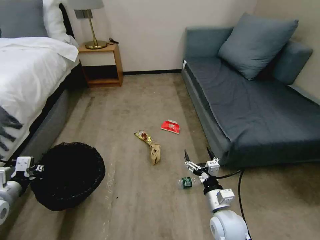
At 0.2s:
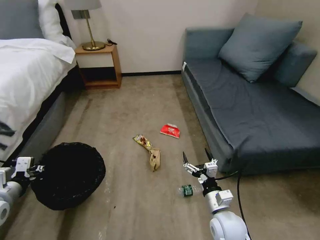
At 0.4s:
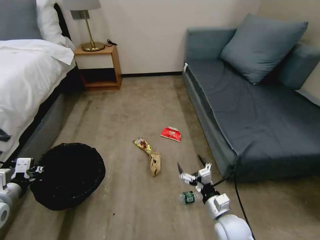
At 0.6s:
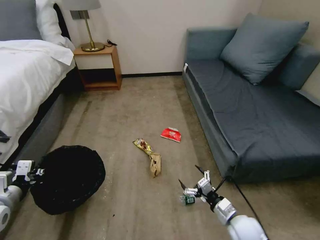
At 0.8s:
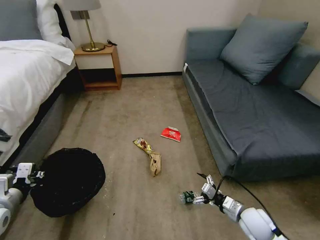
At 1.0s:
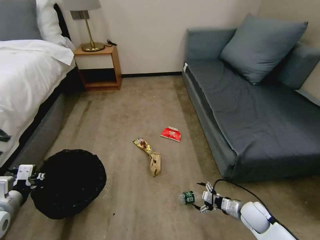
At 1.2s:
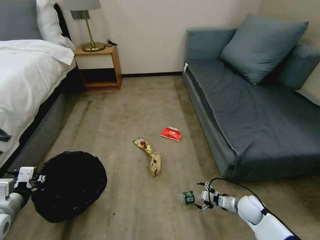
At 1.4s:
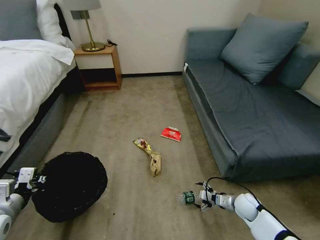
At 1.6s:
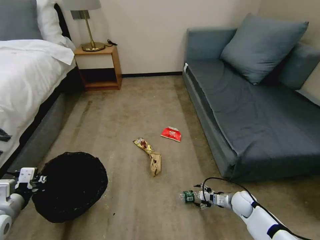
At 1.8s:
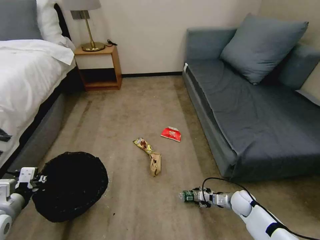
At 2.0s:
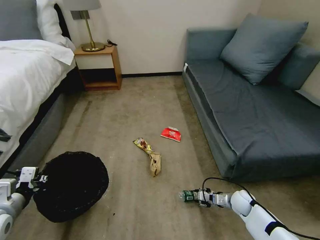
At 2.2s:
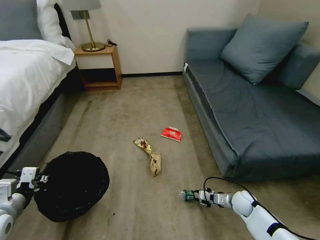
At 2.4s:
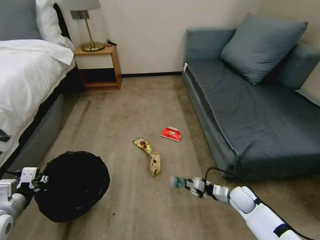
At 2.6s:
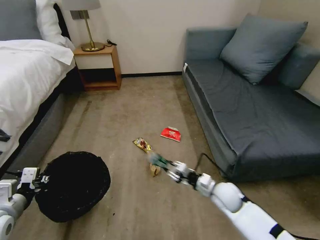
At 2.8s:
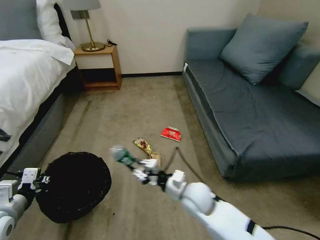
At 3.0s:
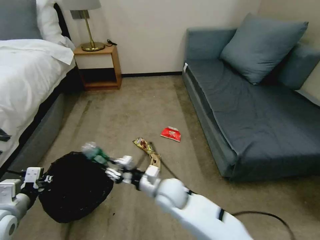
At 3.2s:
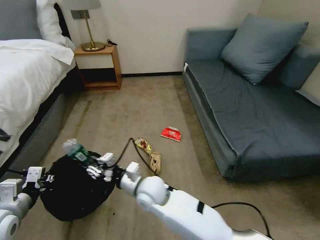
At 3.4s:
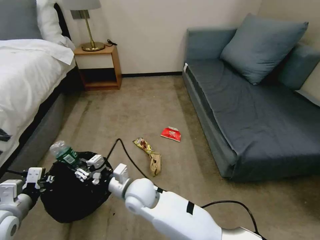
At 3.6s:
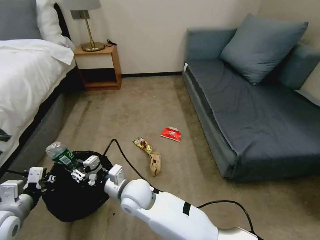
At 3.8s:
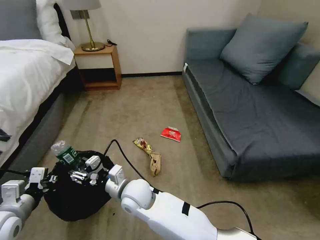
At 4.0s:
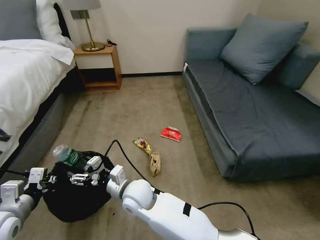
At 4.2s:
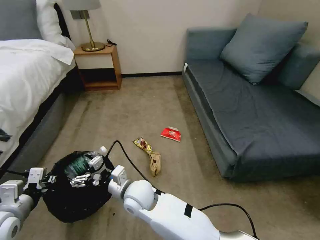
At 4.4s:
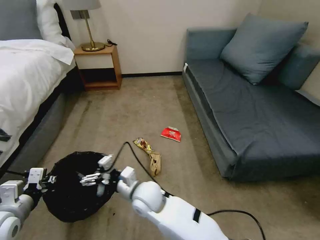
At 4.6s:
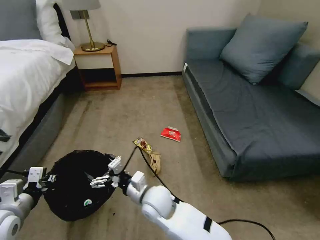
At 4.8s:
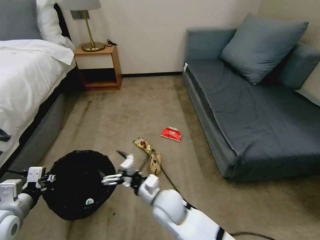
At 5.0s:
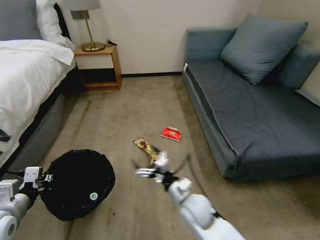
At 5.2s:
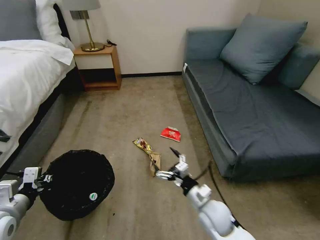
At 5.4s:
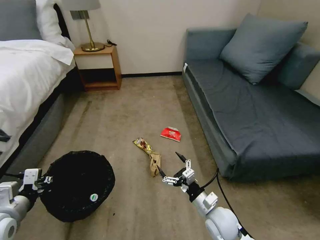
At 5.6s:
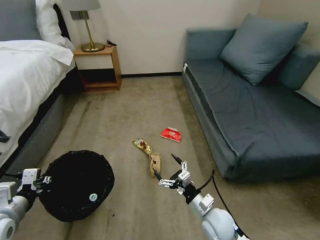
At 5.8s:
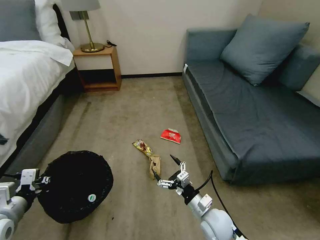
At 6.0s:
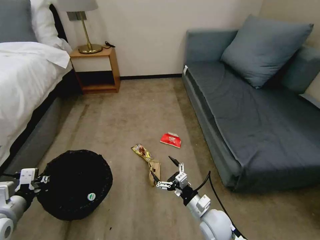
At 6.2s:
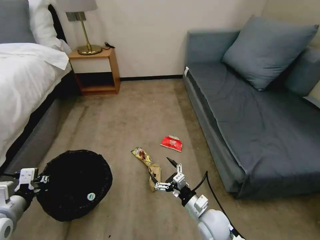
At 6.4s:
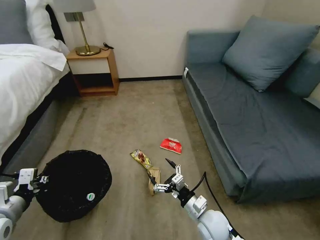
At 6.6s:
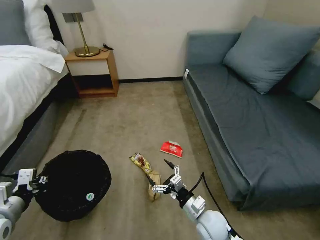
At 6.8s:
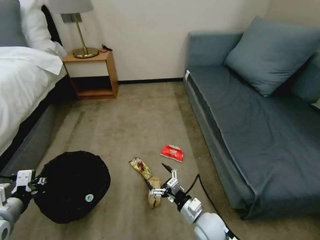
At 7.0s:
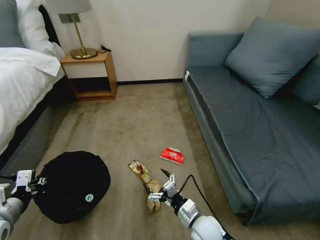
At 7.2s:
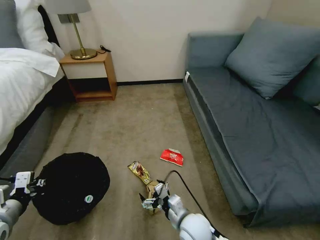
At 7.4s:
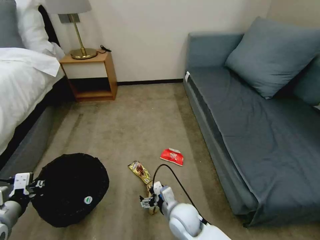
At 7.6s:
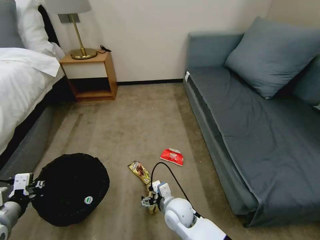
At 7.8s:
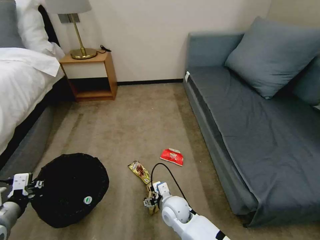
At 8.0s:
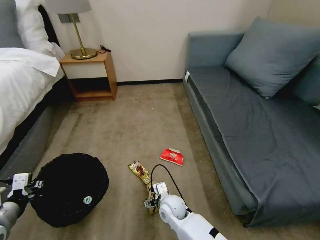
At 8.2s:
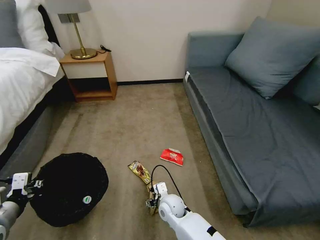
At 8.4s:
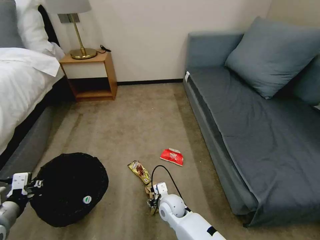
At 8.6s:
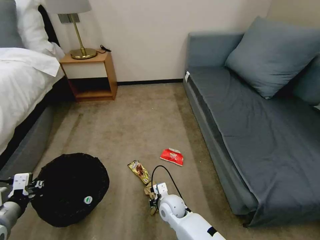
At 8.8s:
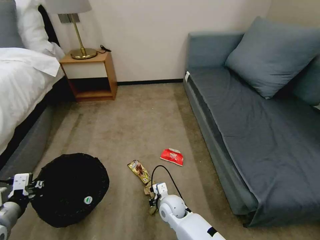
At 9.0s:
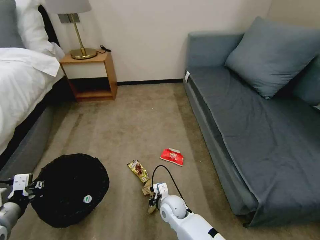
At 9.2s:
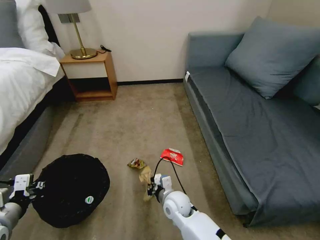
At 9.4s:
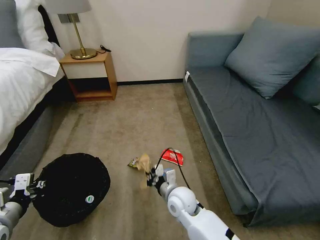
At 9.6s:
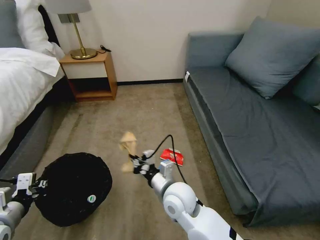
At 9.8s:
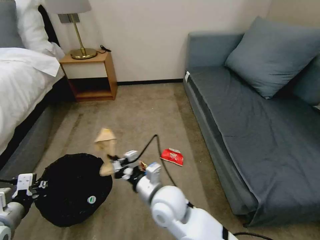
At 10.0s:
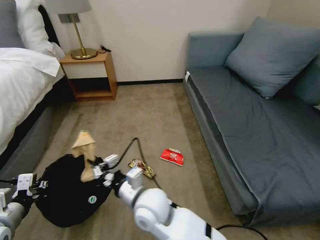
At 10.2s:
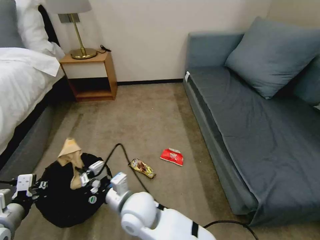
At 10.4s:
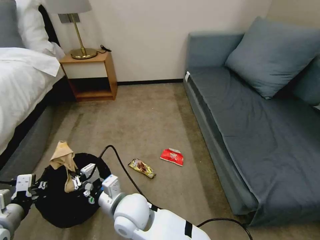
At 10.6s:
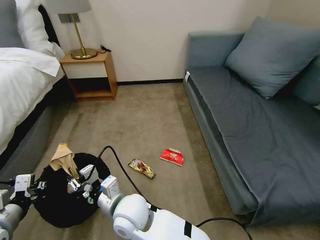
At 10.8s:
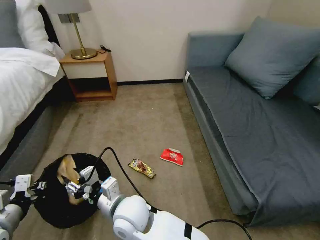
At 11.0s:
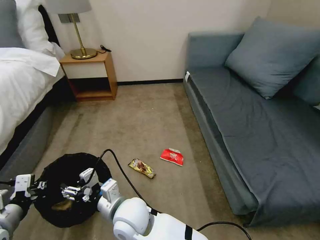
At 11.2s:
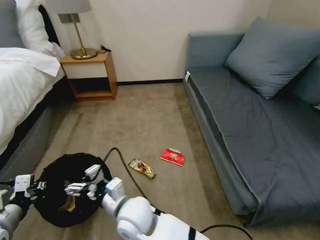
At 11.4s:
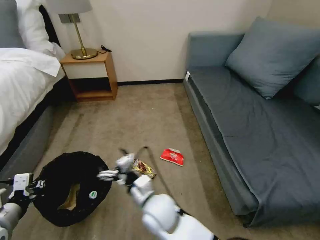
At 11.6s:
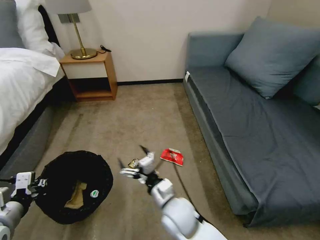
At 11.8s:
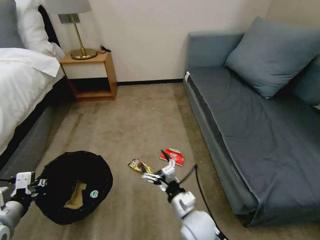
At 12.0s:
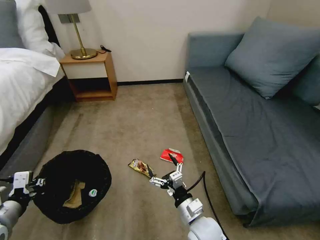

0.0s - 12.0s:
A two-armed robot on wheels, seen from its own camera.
Task of the whole recording: Pick up the trash bin, then pick up the garbage on the floor and place it into the trash bin.
0.0s - 1.6s: The right gripper heads to the right, downward and forward, covering about 25 cm.
1.6s - 3.0s: The right gripper shifts roughly 35 cm to the left and upward, and closes its fingers.
3.0s - 4.4s: The right gripper shifts about 10 cm to the left, and opens its fingers.
4.4s - 6.0s: The right gripper moves to the right, some 25 cm.
6.0s - 7.6s: The right gripper moves to the left, some 10 cm.
7.6s - 9.0s: The right gripper heads downward, covering about 5 cm, and closes its fingers.
9.0s - 10.4s: The right gripper moves upward and to the left, about 20 cm.
10.4s - 12.0s: The right gripper heads to the right and downward, covering roughly 25 cm, and opens.

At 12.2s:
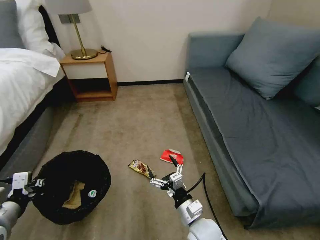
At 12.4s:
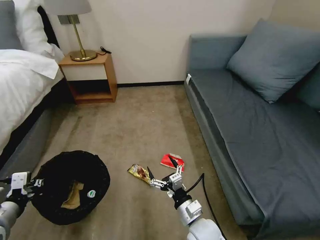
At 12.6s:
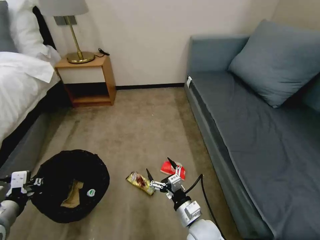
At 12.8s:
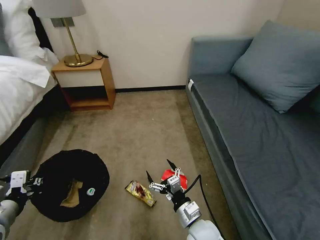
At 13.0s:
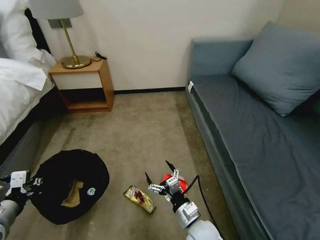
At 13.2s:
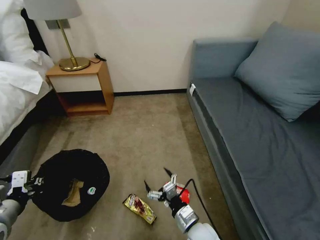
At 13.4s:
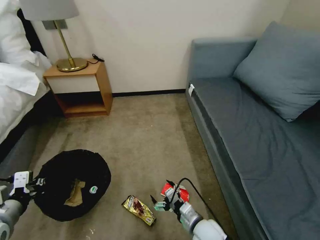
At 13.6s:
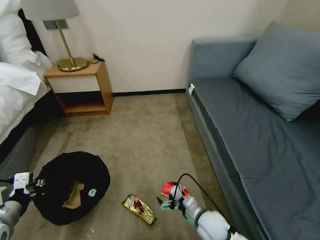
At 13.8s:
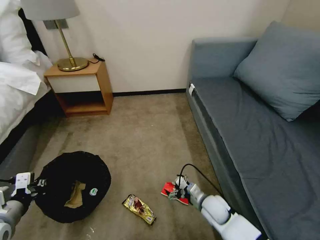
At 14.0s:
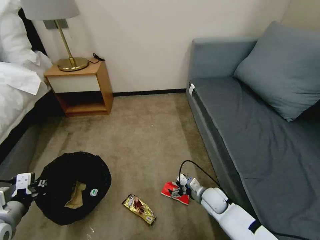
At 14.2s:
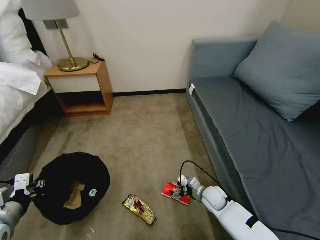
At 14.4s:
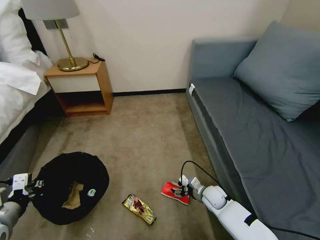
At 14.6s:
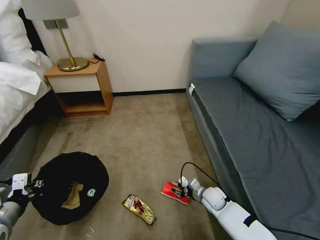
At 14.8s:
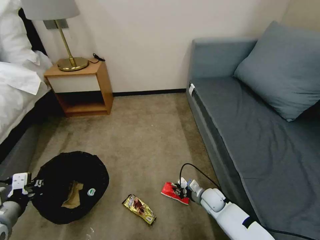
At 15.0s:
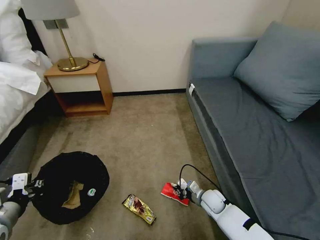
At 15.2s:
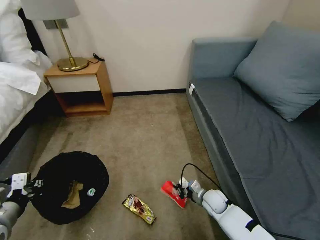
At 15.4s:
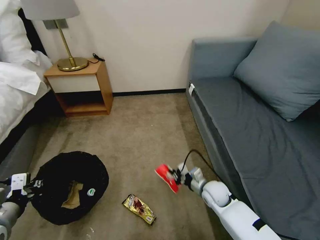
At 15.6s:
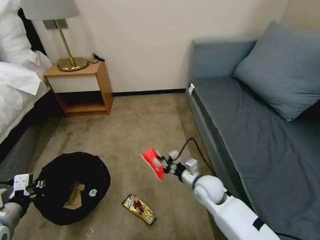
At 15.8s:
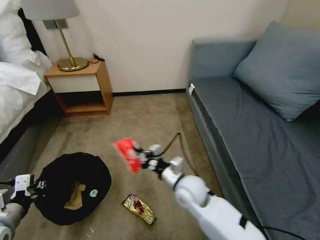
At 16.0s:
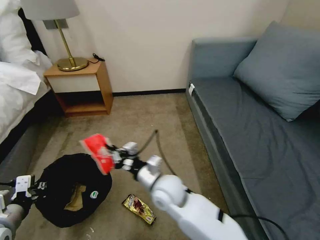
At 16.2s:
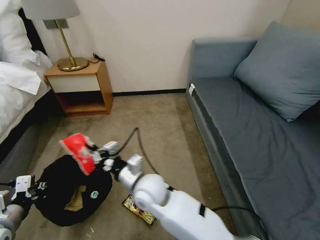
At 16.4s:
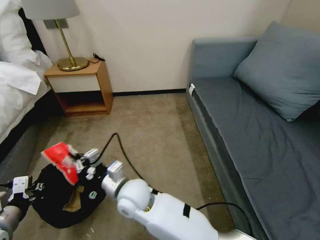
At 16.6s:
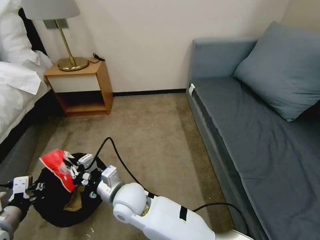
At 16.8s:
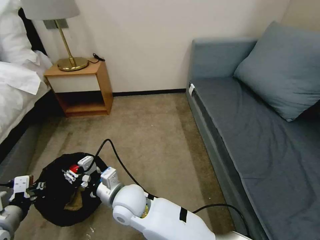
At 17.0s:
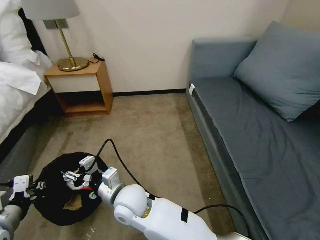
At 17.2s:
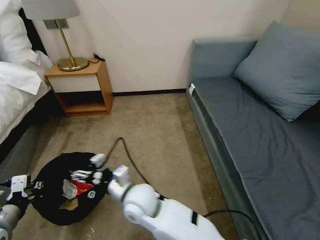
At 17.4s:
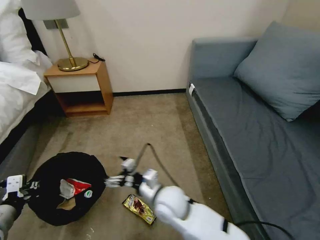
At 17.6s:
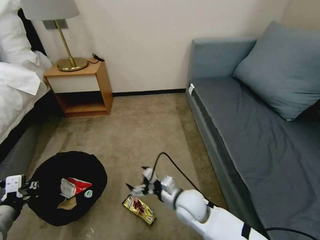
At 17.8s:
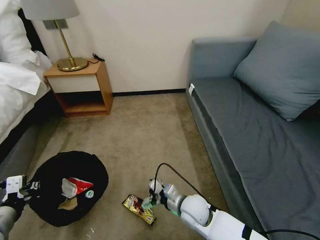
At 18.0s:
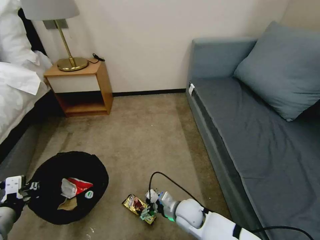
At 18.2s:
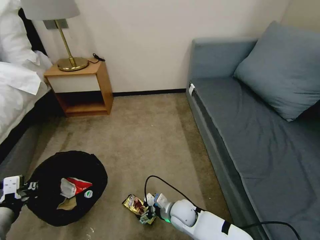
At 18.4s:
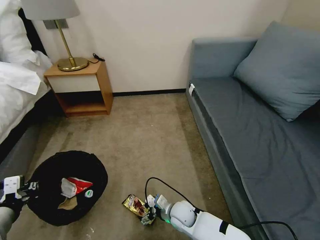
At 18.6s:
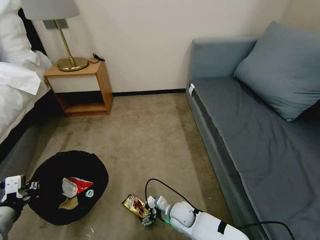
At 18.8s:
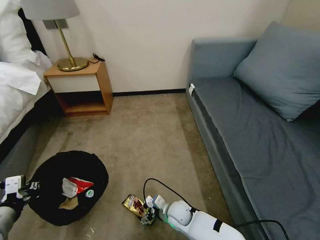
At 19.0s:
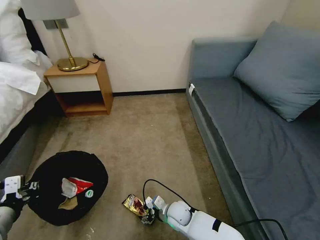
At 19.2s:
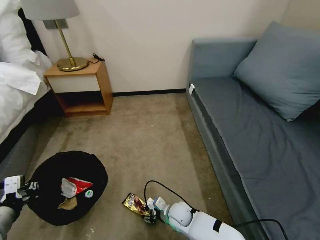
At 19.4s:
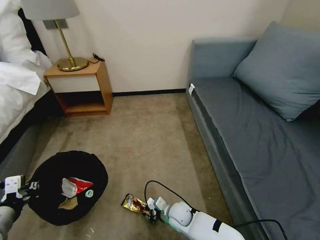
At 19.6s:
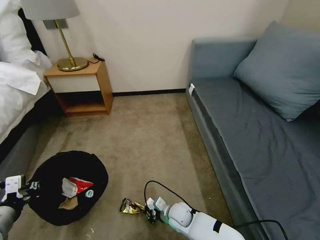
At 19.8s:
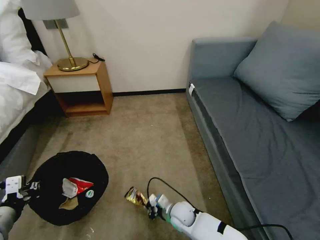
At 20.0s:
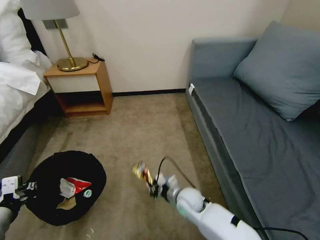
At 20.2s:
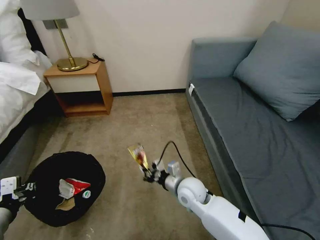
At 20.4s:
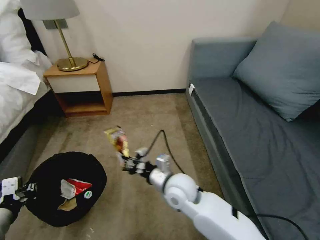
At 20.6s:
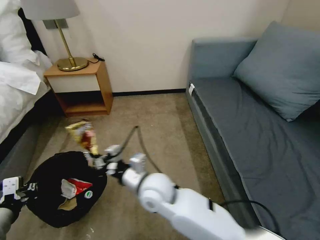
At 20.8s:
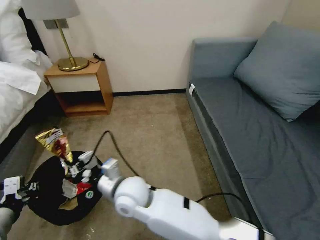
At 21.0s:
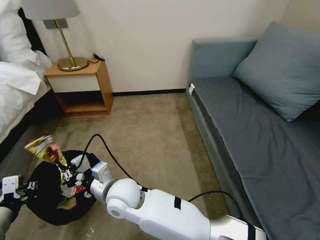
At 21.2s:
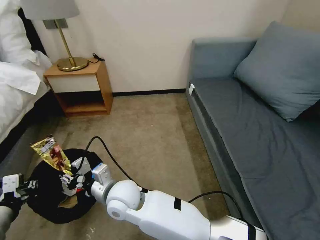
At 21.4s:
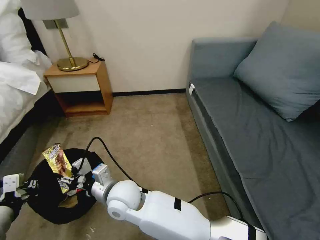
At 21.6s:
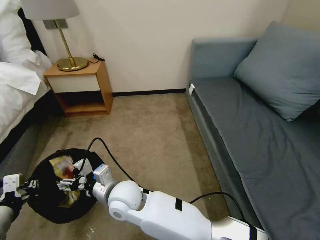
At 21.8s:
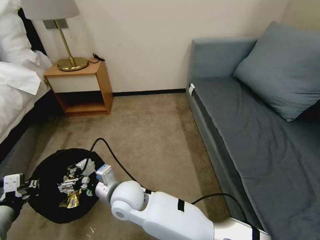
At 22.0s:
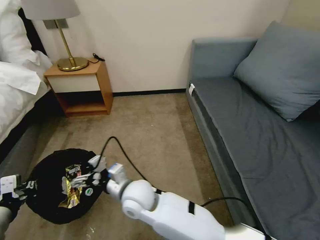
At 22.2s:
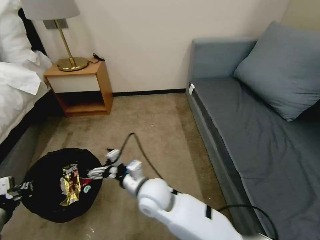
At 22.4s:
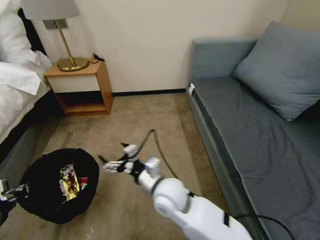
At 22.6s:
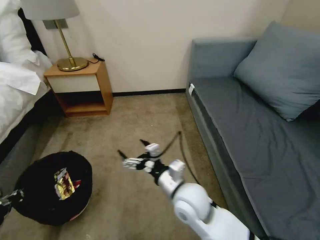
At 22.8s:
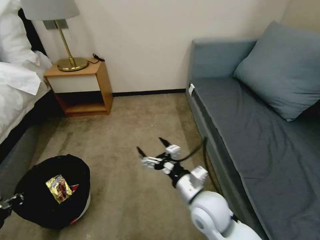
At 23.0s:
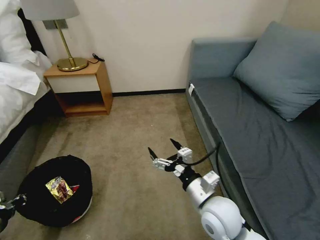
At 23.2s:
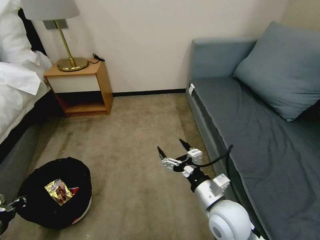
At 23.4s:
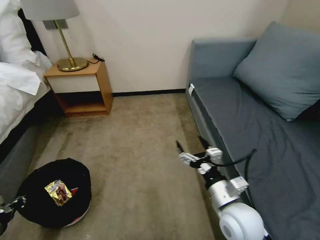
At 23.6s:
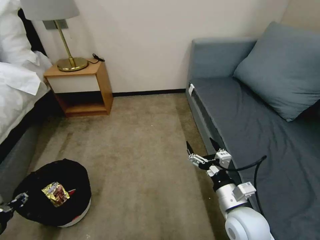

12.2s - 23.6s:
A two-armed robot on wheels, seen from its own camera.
Task of the whole recording: Pick up the trash bin, then pick up the garbage on the floor and place it into the trash bin.
12.2s - 13.6s: The right gripper heads downward, covering approximately 5 cm.
13.6s - 15.0s: The right gripper is displaced forward and downward by approximately 10 cm, and closes up.
15.0s - 16.4s: The right gripper is displaced to the left and upward by roughly 40 cm.
16.4s - 17.8s: The right gripper heads to the right and downward, covering roughly 25 cm, and opens its fingers.
17.8s - 19.4s: The right gripper goes approximately 10 cm downward, and closes up.
19.4s - 20.8s: The right gripper travels upward and to the left by about 30 cm.
20.8s - 22.2s: The right gripper goes roughly 5 cm to the right, and opens.
22.2s - 23.6s: The left gripper goes approximately 10 cm downward and to the left, and opens its fingers. Meanwhile the right gripper heads to the right, covering about 25 cm.
